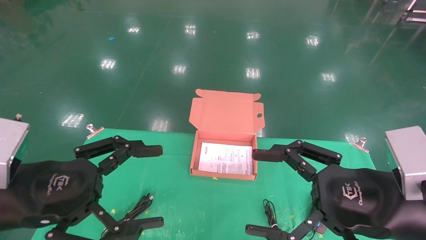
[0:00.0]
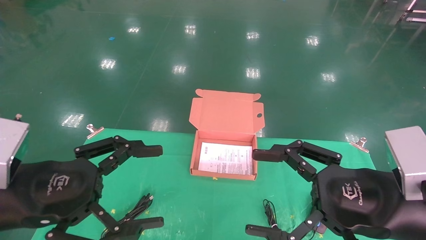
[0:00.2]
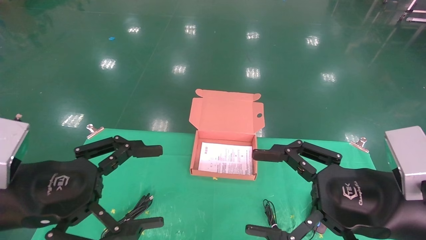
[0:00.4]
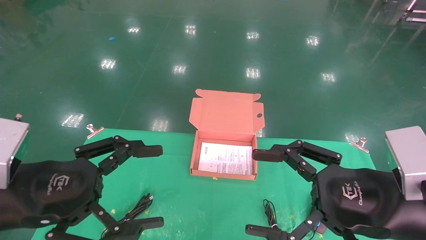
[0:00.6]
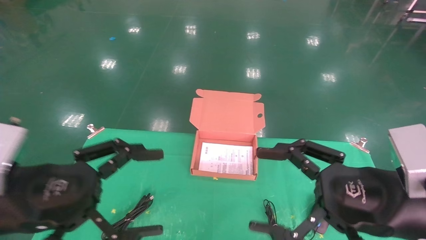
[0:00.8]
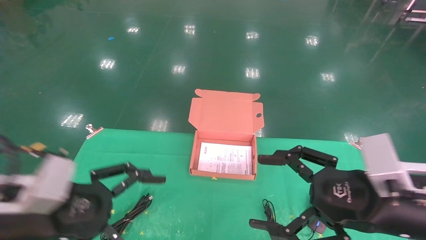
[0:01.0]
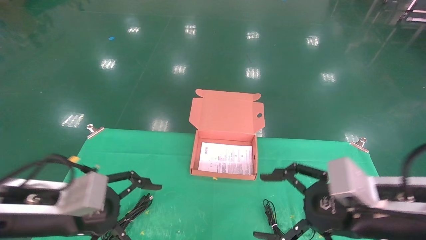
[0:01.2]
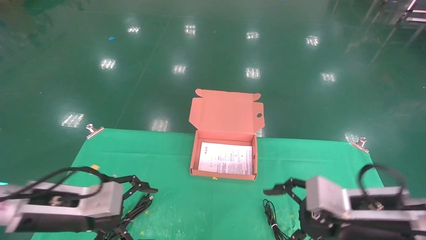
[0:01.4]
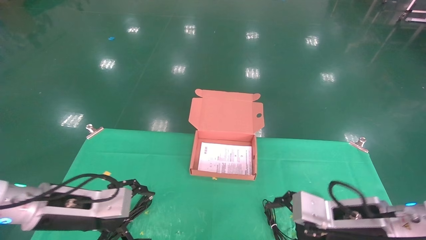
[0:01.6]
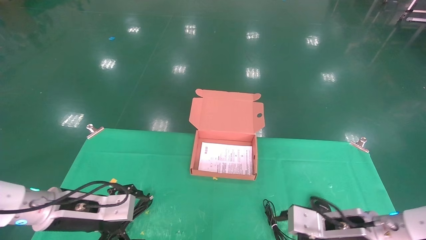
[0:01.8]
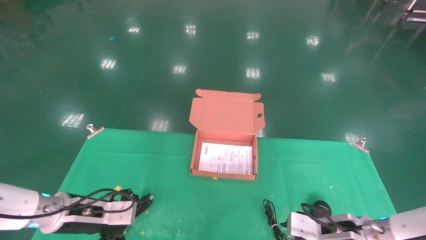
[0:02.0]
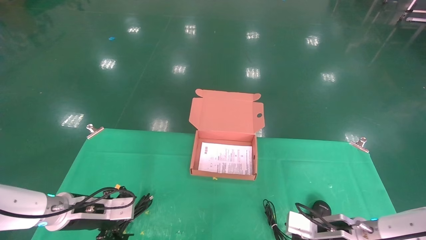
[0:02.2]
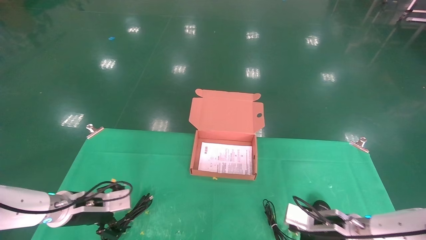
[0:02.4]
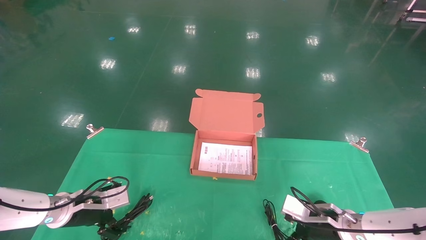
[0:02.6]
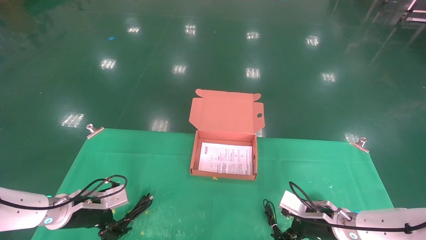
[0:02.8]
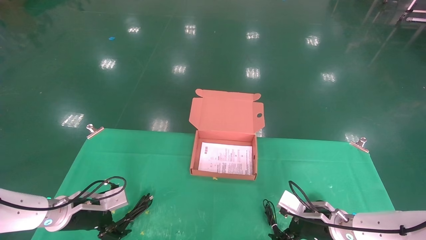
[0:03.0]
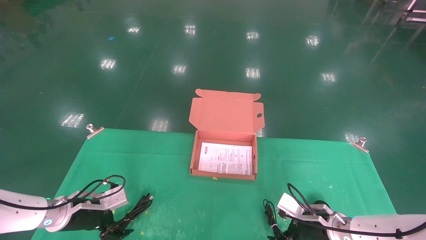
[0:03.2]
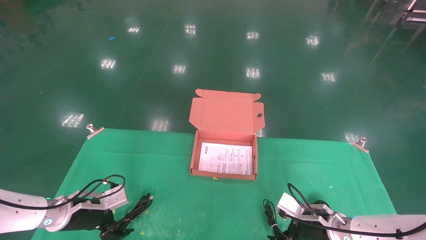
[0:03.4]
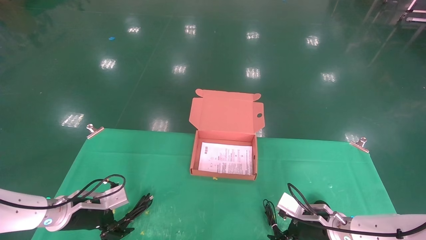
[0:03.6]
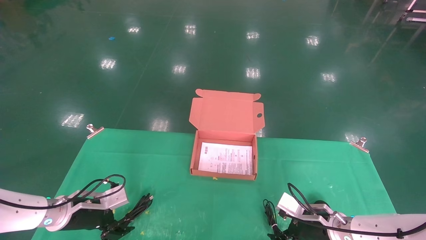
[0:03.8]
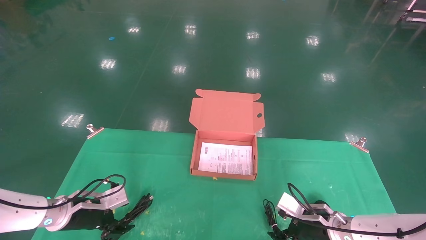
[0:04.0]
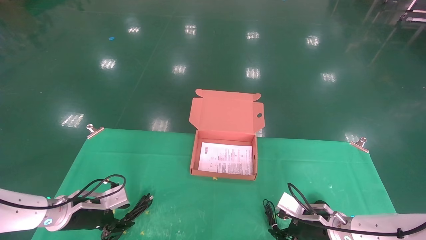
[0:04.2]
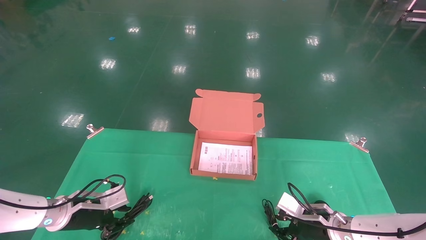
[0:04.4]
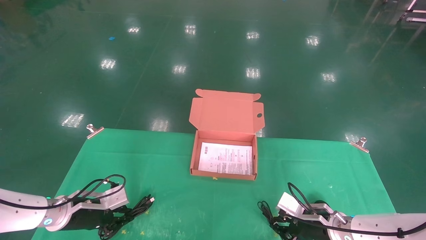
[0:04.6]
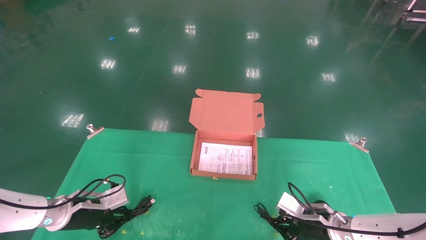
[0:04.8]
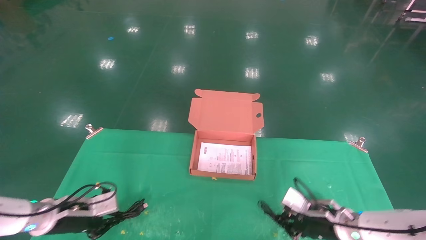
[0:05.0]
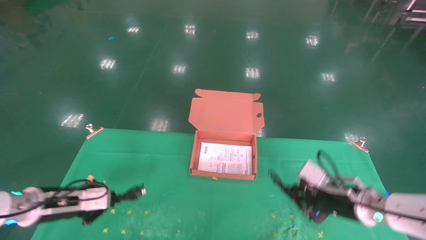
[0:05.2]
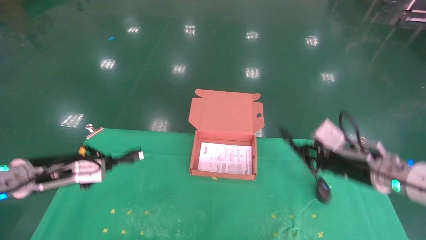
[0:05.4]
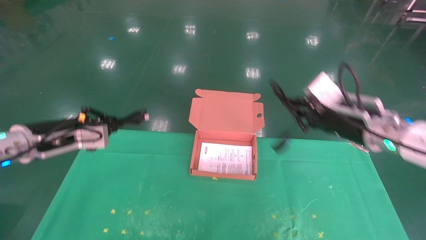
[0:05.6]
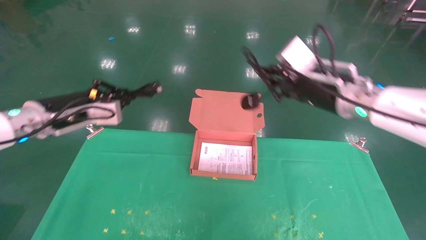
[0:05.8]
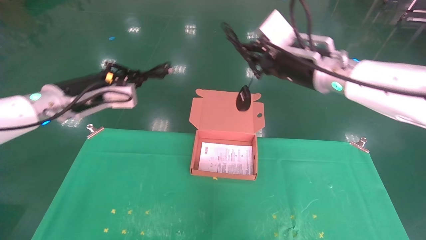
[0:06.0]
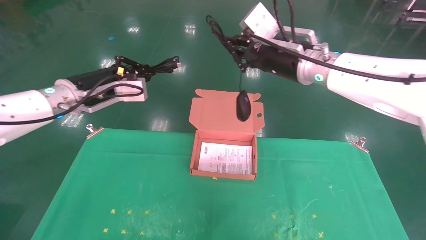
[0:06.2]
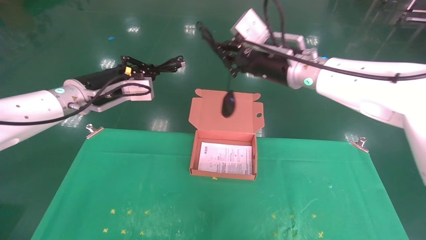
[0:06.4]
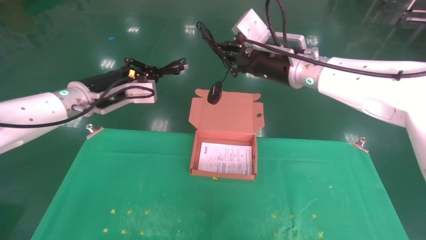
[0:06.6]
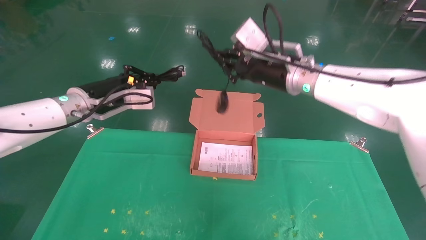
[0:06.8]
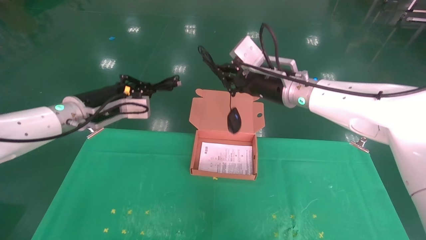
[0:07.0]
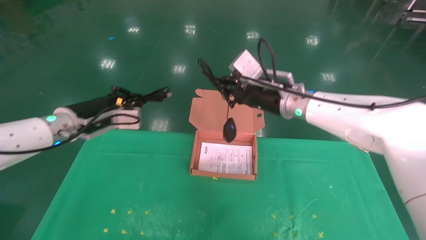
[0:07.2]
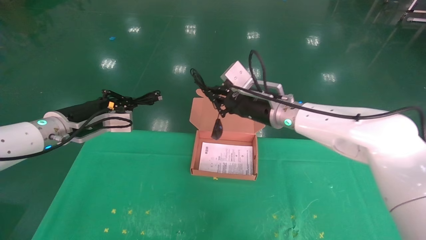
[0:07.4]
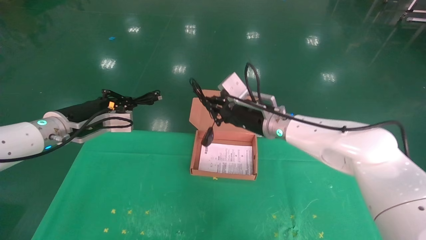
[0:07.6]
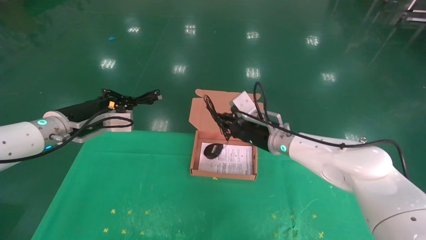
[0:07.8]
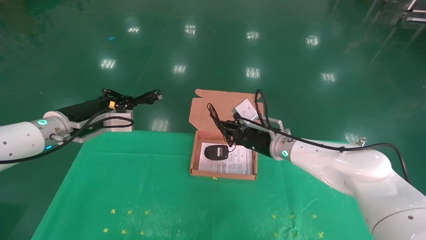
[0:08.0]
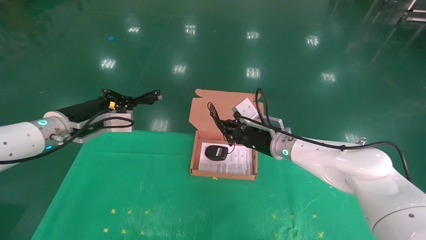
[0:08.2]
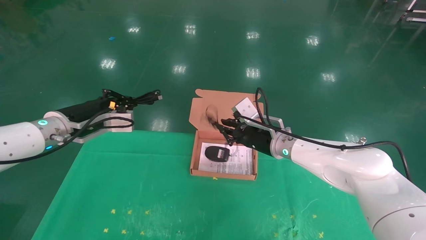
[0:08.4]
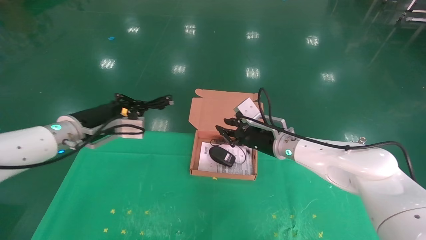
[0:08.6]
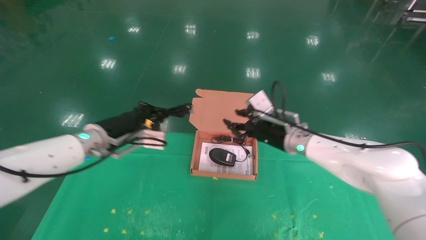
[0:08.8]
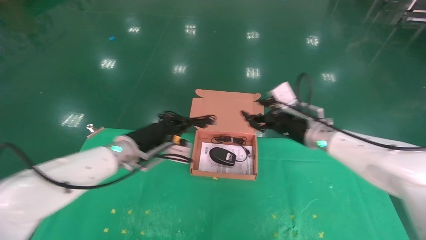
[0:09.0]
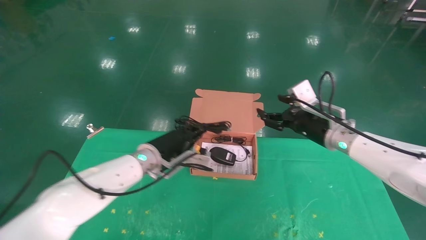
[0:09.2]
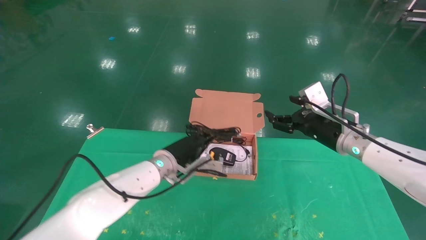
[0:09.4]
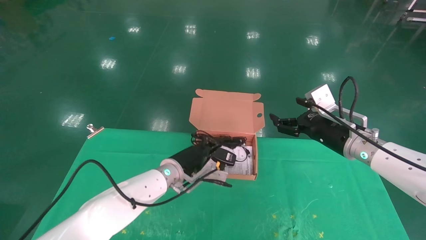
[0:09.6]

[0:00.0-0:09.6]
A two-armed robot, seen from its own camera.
Task of the whole recording: grasp data cable left put into box grasp mouse right put into box.
Step, 0:01.0 to 0:05.0: Grab and pick up both the mouse and power cord from the accessory packaging area at the same time.
0:00.0 to 0:01.6: The left gripper goes some 15 cm forward and downward. The right gripper heads downward and forward, covering approximately 10 cm.
0:01.6 to 0:03.2: The right gripper shifts approximately 15 cm downward and forward. Meanwhile the left gripper moves downward, forward and to the left, roughly 15 cm.
0:03.2 to 0:04.8: The right gripper closes its fingers, while the left gripper closes up.
0:04.8 to 0:06.4: The grippers both shift upward by roughly 30 cm.
0:06.4 to 0:08.0: The left gripper is displaced downward by some 5 cm, while the right gripper is displaced downward by about 15 cm.
0:08.0 to 0:09.6: The right gripper travels to the right and backward by some 15 cm, and opens, while the left gripper is displaced to the right and downward by approximately 25 cm.

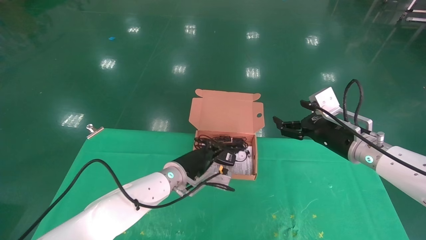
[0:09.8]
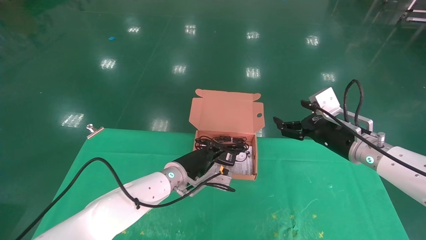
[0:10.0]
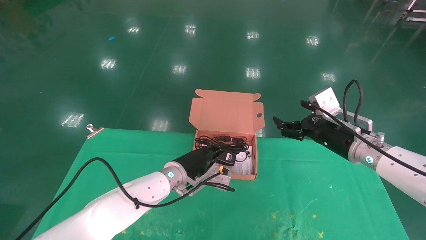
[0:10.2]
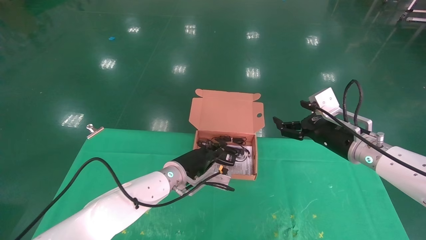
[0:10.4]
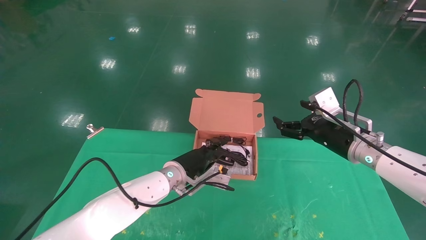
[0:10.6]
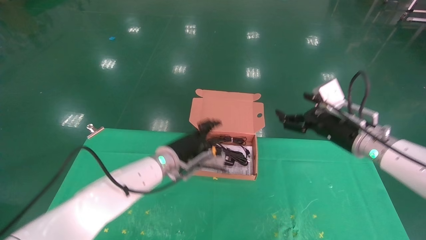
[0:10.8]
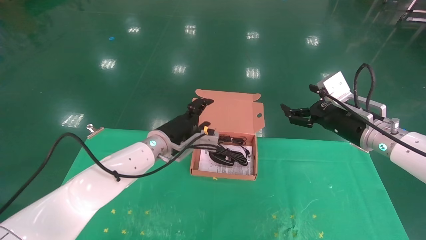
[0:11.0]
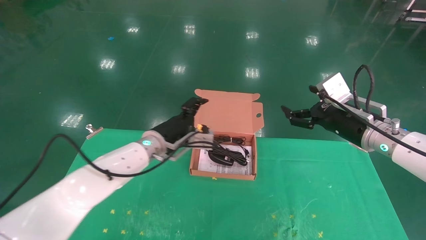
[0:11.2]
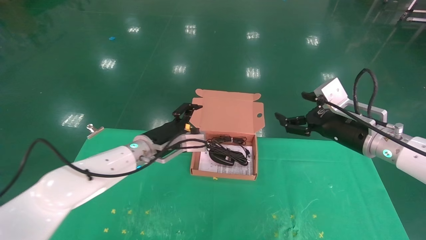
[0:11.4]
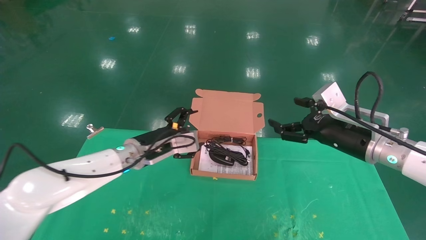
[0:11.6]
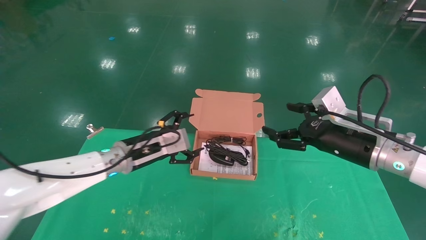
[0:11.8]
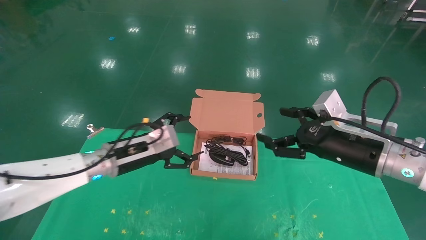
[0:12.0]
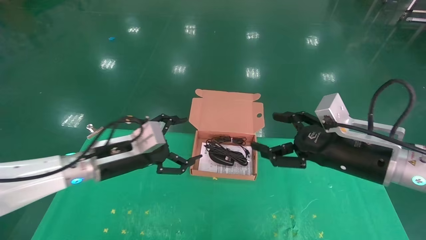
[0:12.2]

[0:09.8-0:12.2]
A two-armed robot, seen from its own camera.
Task of the whole recording: grasp data cable left put into box grasp mouse right put into box.
0:09.8 to 0:11.0: The left gripper travels upward by roughly 5 cm, and opens its fingers.
0:11.0 to 0:12.2: The left gripper shifts approximately 15 cm to the left and backward, and opens. Meanwhile the right gripper heads backward, covering about 10 cm.
